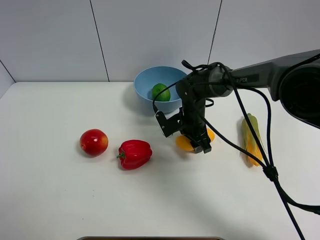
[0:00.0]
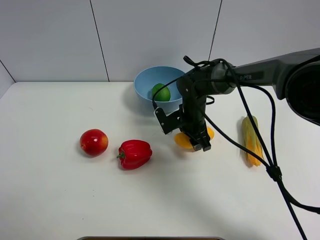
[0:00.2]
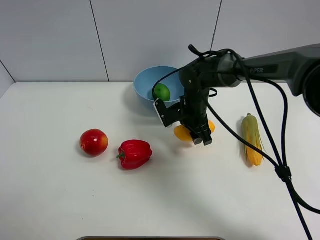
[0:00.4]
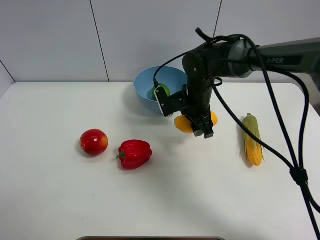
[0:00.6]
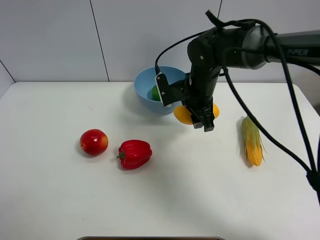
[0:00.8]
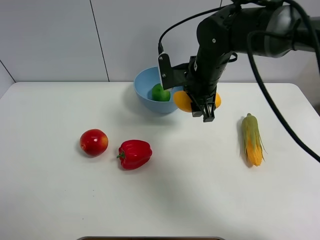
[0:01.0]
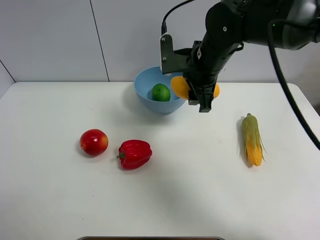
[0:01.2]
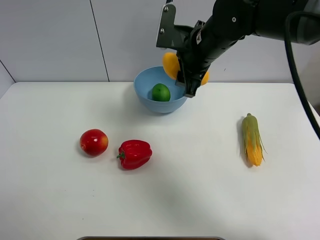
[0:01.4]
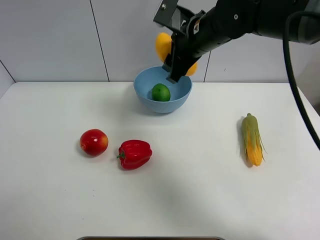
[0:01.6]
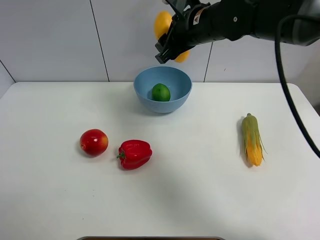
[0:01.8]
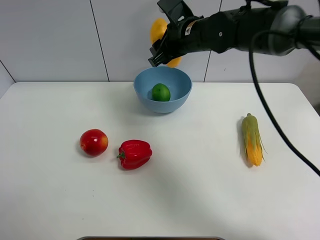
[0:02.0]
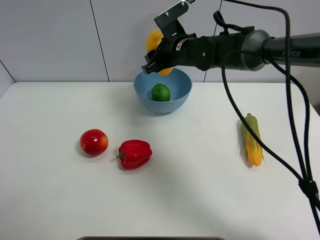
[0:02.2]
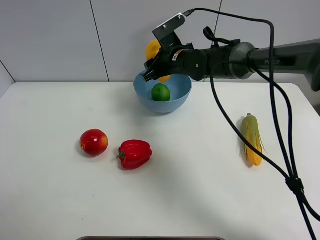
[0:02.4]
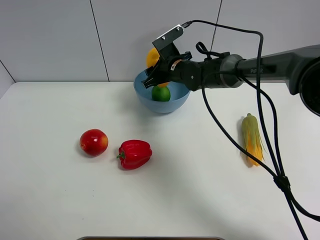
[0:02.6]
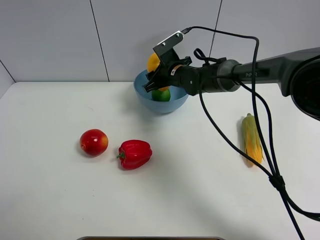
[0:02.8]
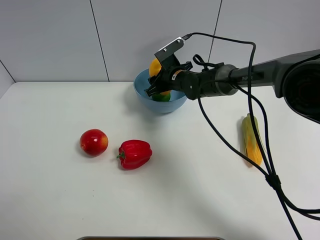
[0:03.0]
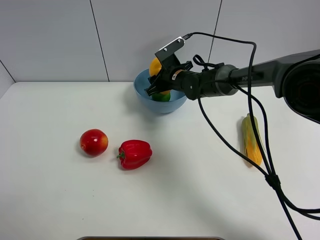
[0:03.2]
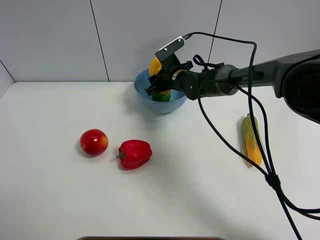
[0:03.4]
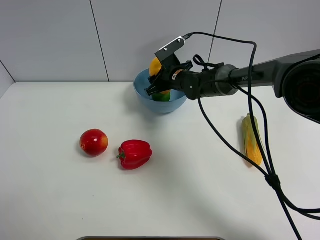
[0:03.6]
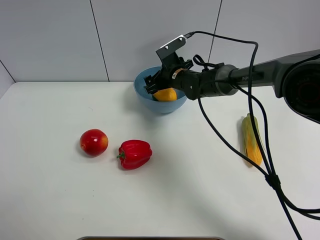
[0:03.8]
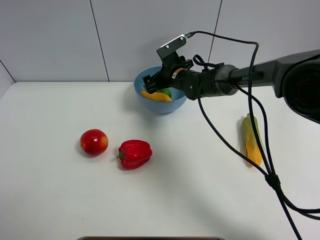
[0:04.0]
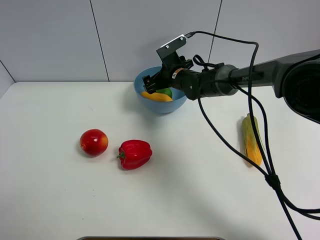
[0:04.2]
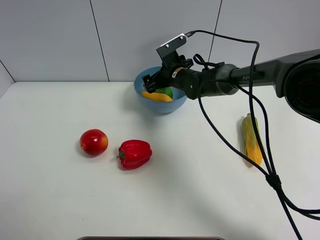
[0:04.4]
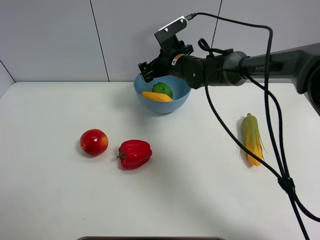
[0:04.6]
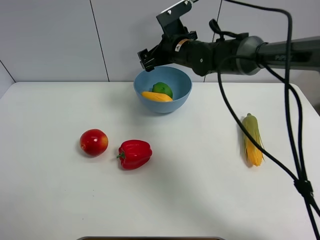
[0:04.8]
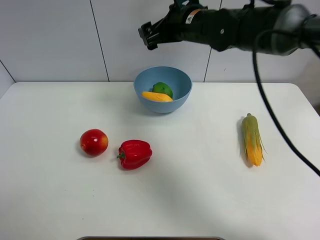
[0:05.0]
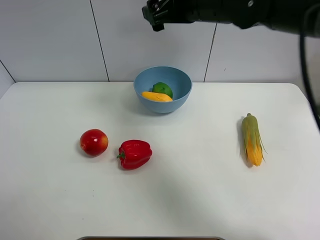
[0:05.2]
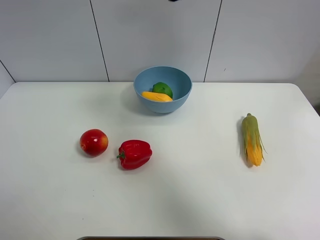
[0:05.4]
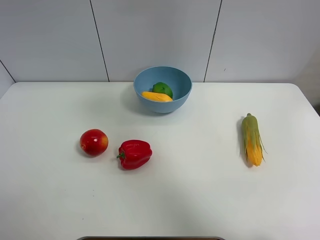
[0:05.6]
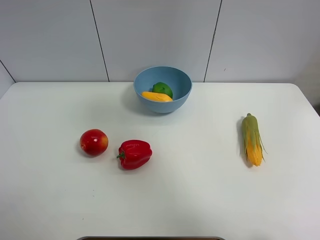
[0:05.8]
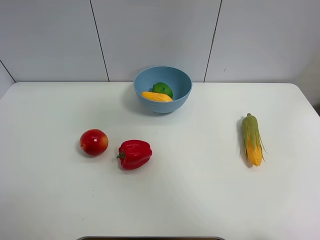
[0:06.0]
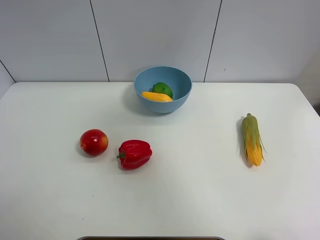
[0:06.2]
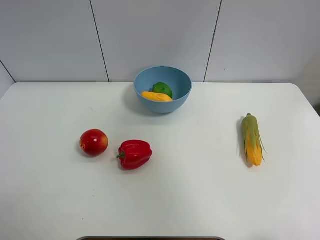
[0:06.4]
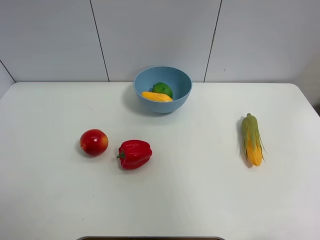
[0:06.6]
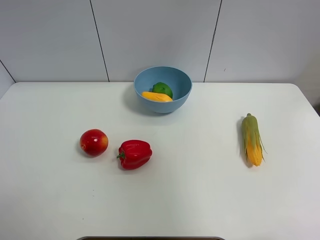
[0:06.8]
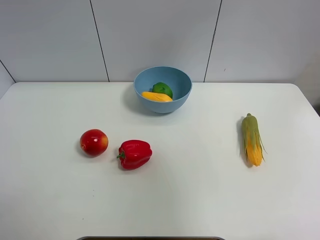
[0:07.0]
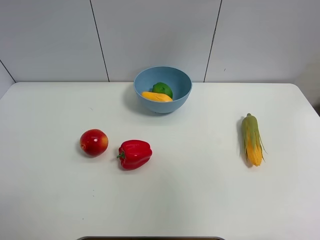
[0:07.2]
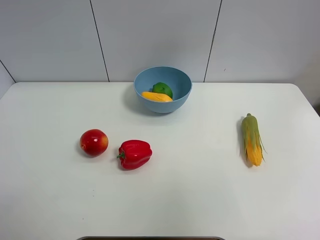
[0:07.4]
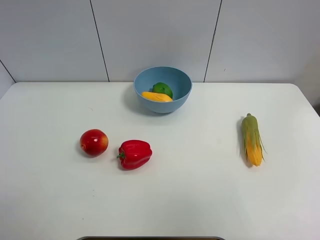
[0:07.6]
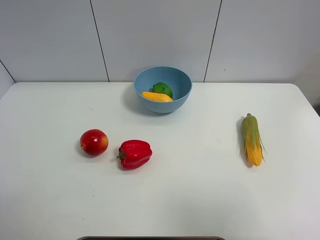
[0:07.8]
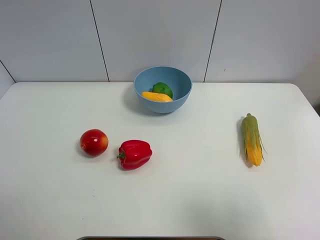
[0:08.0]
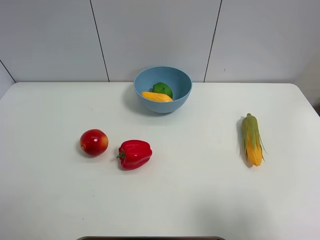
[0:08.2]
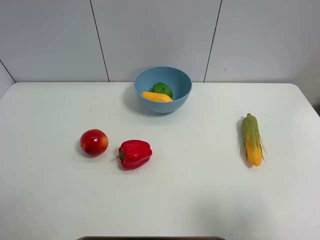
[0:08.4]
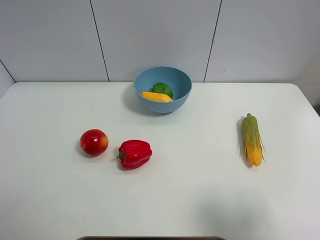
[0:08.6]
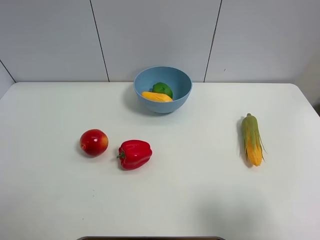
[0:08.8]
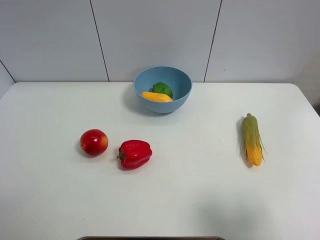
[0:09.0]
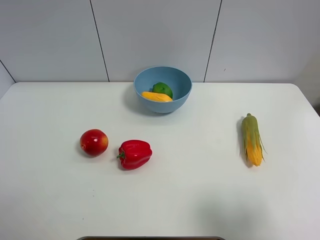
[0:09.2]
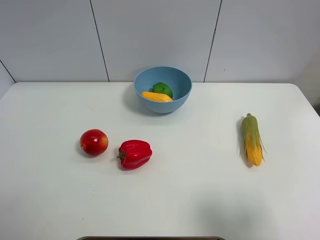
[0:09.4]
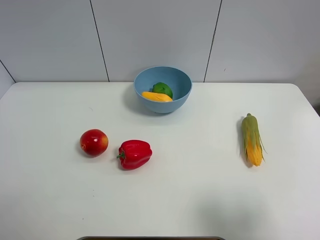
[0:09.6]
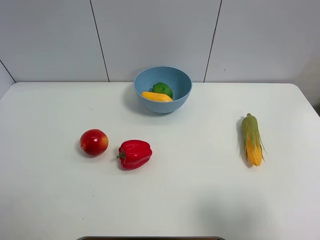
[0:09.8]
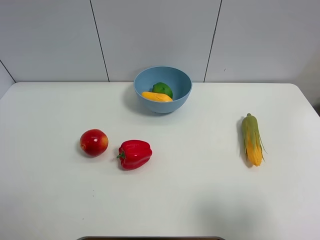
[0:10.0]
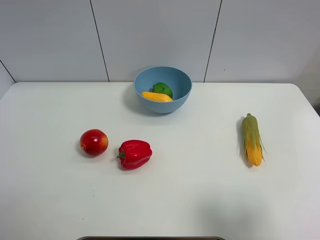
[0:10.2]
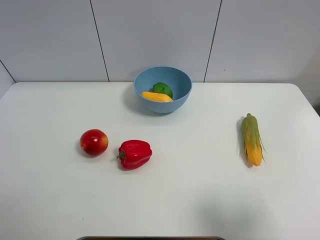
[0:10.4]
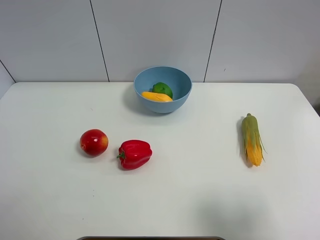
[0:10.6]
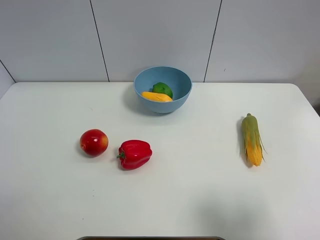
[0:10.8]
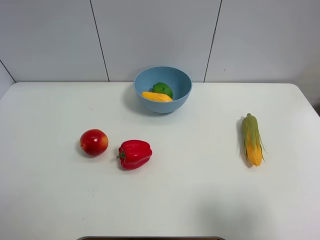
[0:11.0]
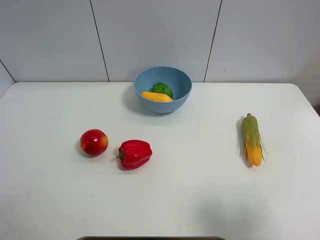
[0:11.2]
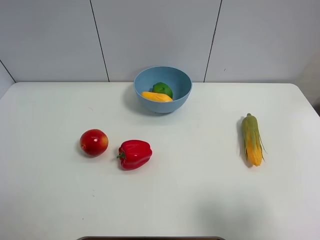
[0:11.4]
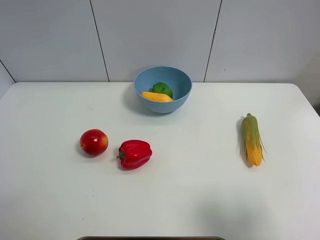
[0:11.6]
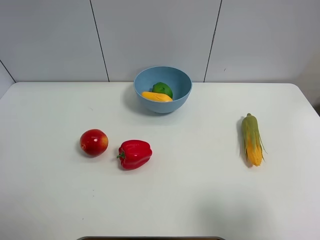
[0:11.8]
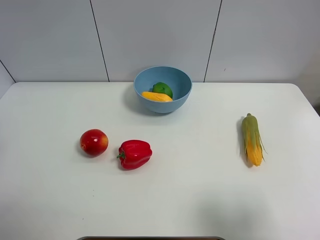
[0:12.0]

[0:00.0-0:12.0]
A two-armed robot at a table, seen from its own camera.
Task of the whole recording: Put the three fruits on the table into a bowl.
Step, 0:00.0 to 0:04.6: Place the mango in the blue bowl with right gripper.
0:00.0 to 0:01.6: The right gripper is displaced upward by roughly 20 cm.
0:01.6 to 0:03.0: The right gripper heads downward and forward, covering approximately 20 cm.
0:03.0 to 0:04.4: The right gripper opens its fingers.
0:04.4 to 0:06.0: The right gripper is displaced upward and backward by approximately 40 cm.
0:06.0 to 0:07.6: The right gripper is displaced backward and to the right by approximately 25 cm.
0:07.6 to 0:09.0: The right gripper shifts about 15 cm downward.
0:09.0 to 0:10.4: Neither gripper changes place.

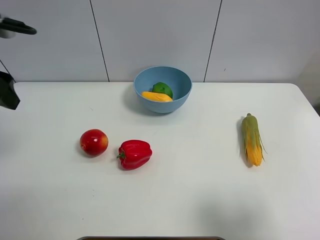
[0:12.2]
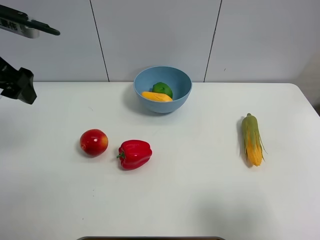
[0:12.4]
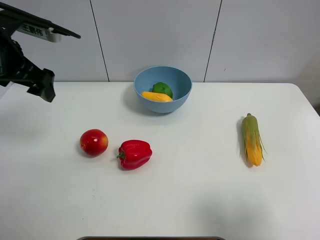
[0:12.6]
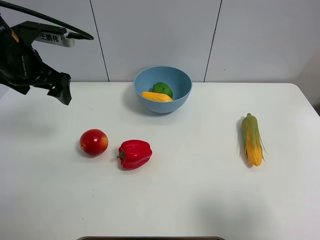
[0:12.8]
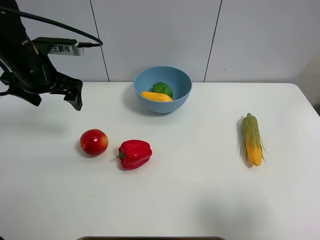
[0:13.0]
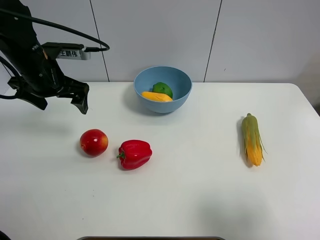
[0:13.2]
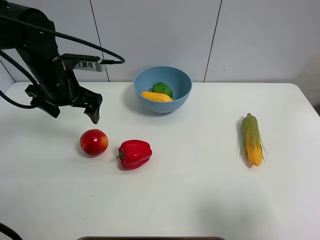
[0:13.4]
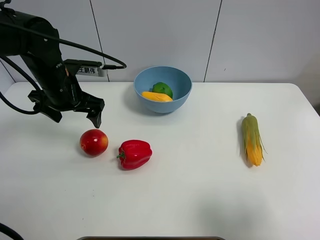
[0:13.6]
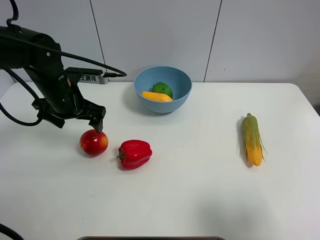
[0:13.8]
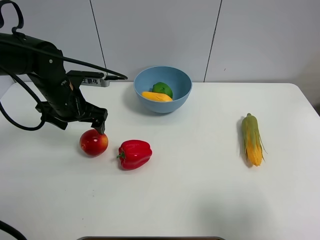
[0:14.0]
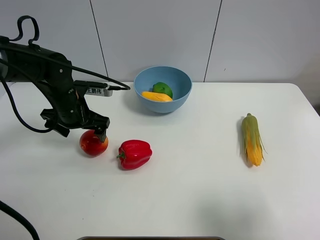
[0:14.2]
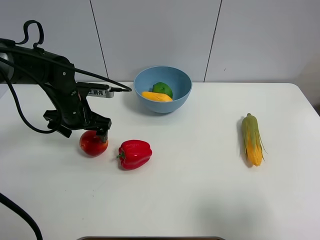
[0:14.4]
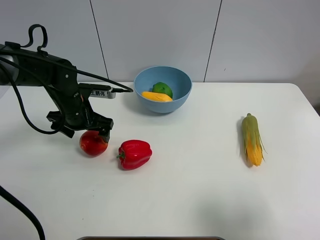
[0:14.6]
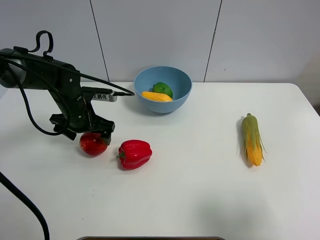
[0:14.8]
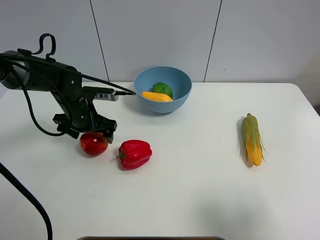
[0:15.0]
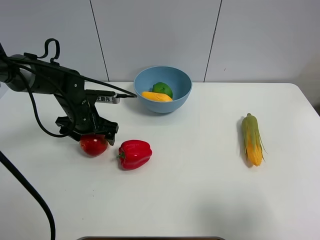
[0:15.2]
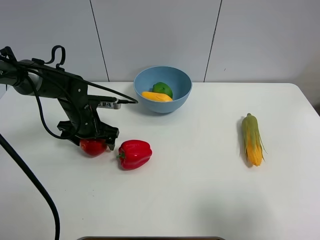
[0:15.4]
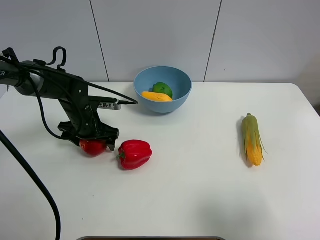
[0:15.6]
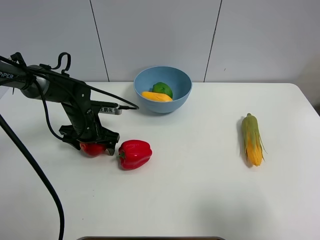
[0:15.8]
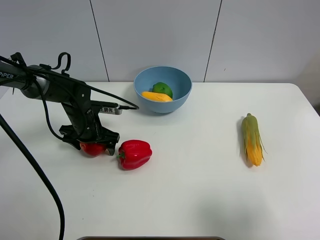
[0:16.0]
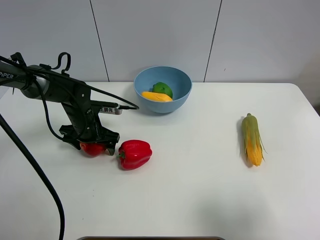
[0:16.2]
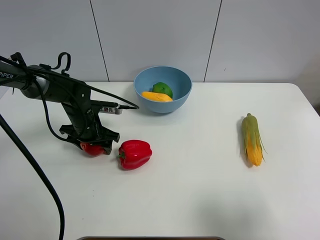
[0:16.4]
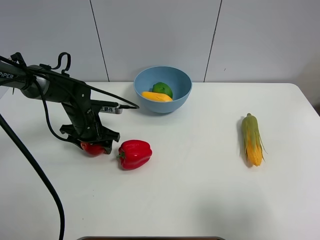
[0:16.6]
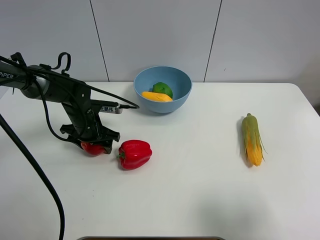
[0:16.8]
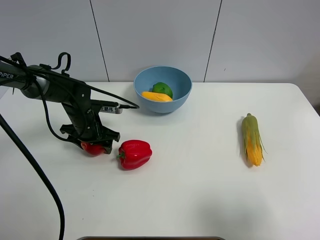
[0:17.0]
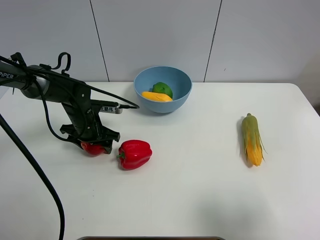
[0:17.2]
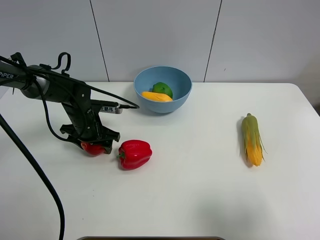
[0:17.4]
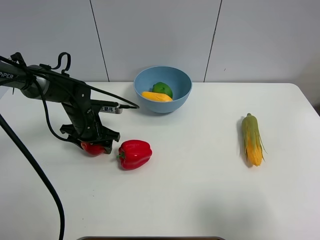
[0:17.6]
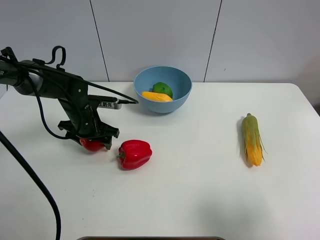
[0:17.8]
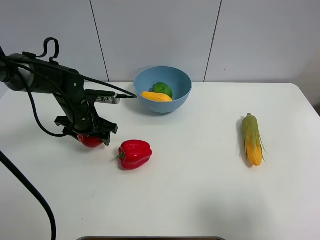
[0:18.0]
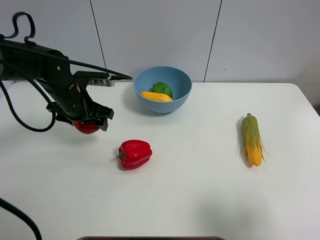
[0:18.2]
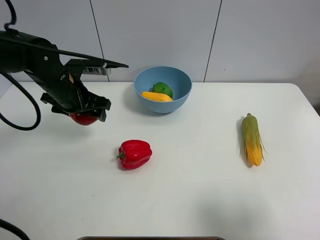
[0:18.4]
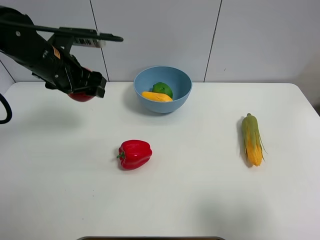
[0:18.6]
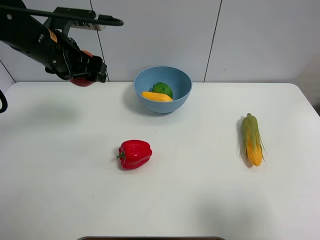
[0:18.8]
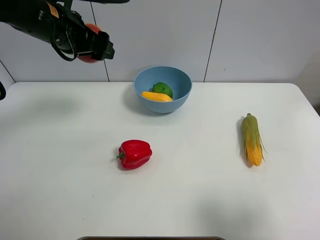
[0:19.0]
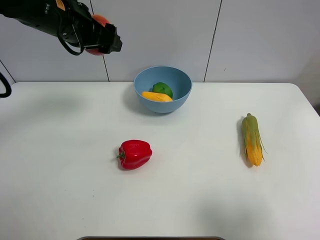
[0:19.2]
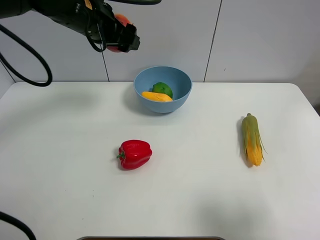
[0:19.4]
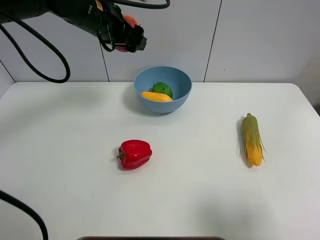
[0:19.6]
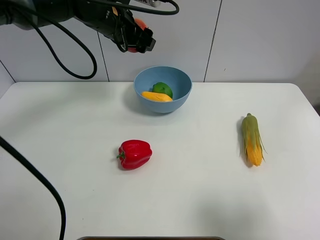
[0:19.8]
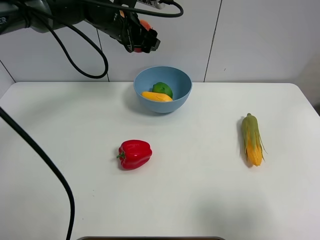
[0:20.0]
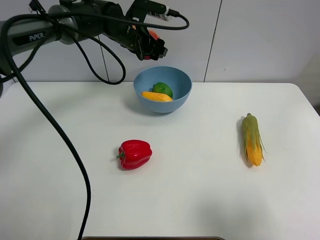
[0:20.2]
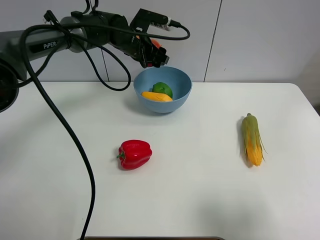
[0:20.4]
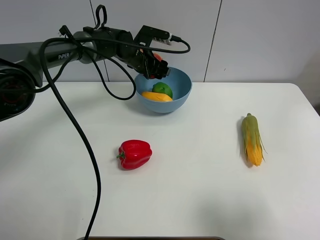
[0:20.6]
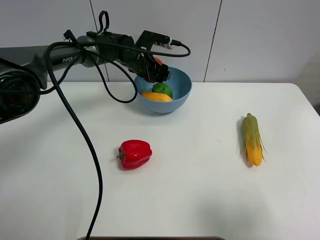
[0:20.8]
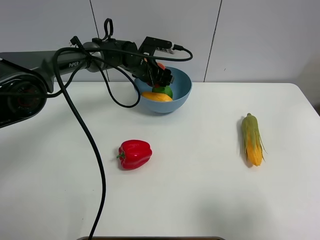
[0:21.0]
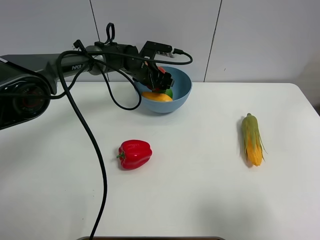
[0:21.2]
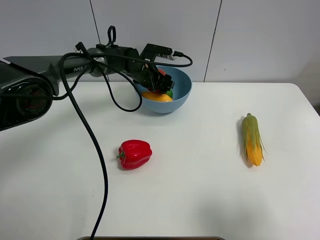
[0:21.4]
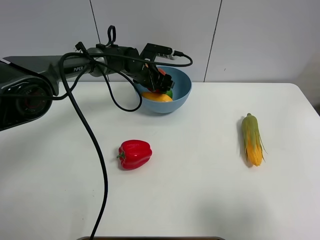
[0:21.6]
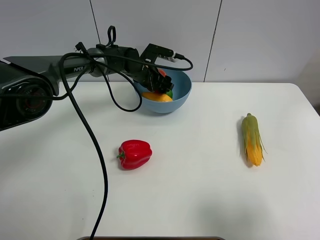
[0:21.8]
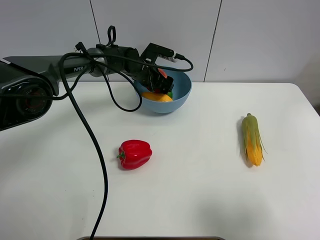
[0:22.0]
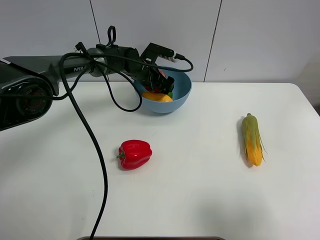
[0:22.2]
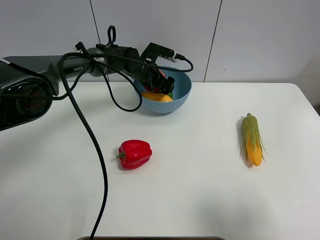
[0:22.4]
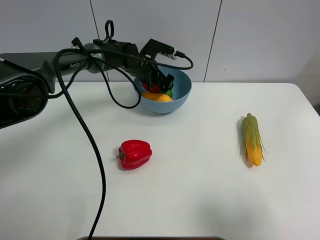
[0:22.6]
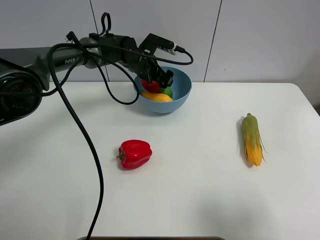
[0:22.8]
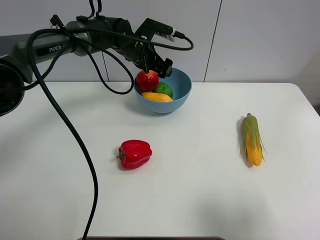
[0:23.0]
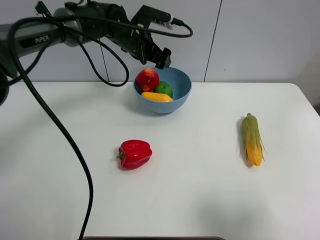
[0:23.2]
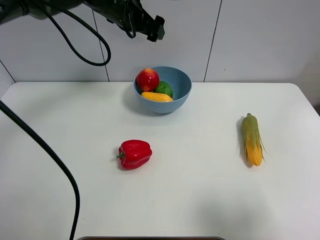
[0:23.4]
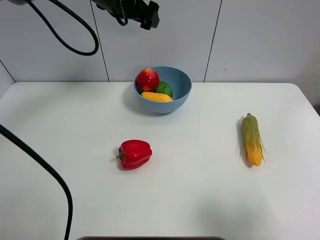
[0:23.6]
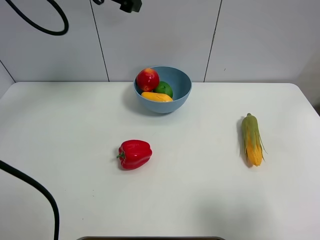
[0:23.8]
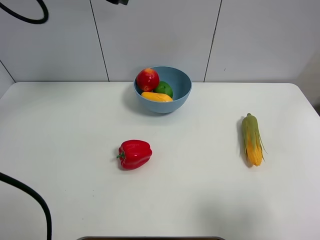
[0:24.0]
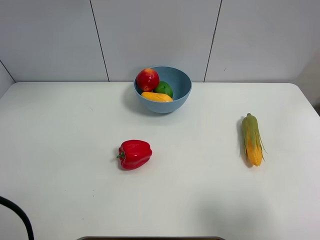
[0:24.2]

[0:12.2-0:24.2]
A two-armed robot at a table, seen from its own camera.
Task of the whole recording: Put the three fruits on the table into a bowl.
Step, 0:12.2 to 0:16.4: Grasp the pomegranate with left gripper.
Step, 0:16.6 to 0:23.0: Place the pomegranate in the blue bowl with left gripper.
0:12.2 to 0:13.8: The left gripper is displaced downward, to the right and forward by some 20 cm.
0:13.8 to 0:15.2: The left gripper shifts about 10 cm downward.
0:15.2 to 0:16.6: The left gripper closes up.
0:16.6 to 0:18.2: The left gripper heads upward, covering some 10 cm.
0:18.2 to 0:19.8: The left gripper goes approximately 15 cm upward, to the right and forward.
0:19.8 to 0:21.2: The left gripper is displaced downward by roughly 15 cm.
0:21.2 to 0:22.6: The left gripper opens its fingers.
0:22.6 to 0:24.2: The left gripper is displaced upward, to the left and backward by some 35 cm.
